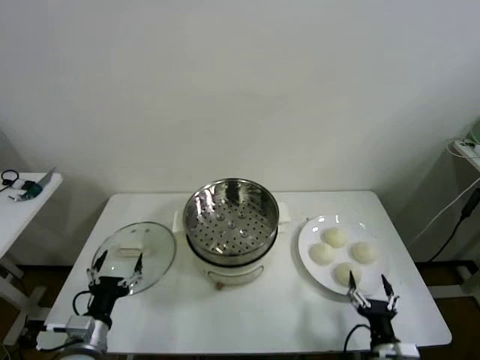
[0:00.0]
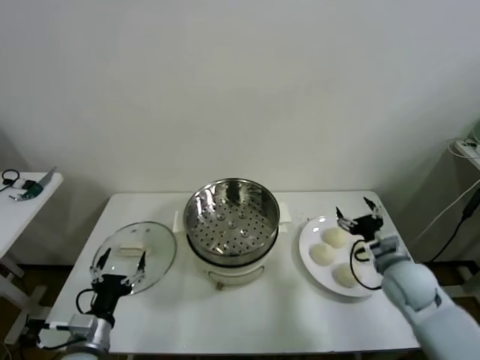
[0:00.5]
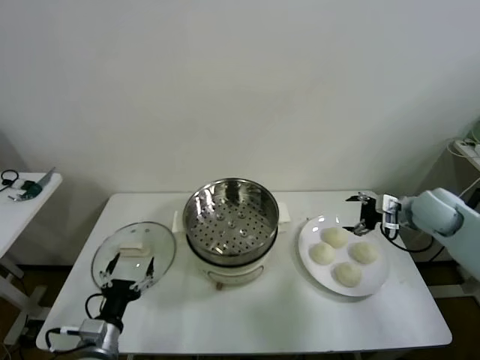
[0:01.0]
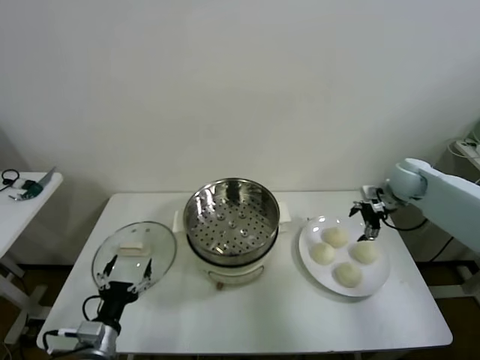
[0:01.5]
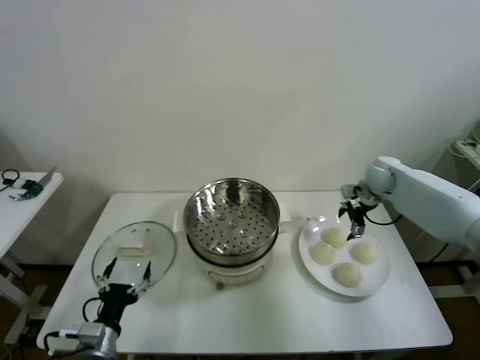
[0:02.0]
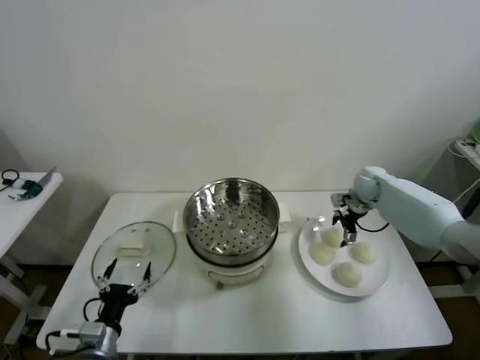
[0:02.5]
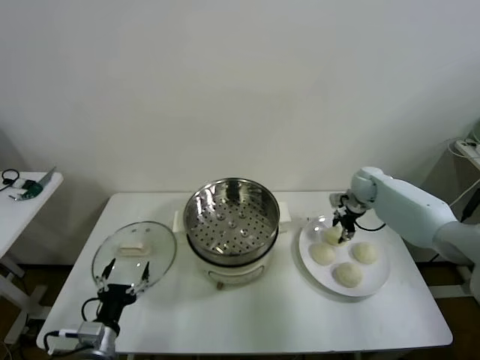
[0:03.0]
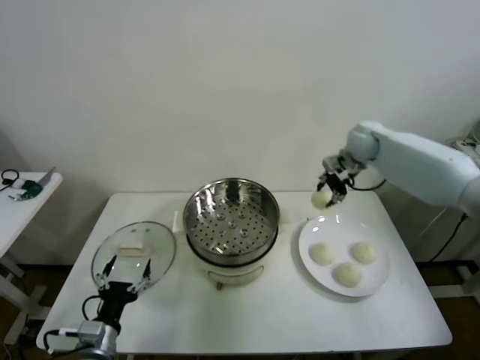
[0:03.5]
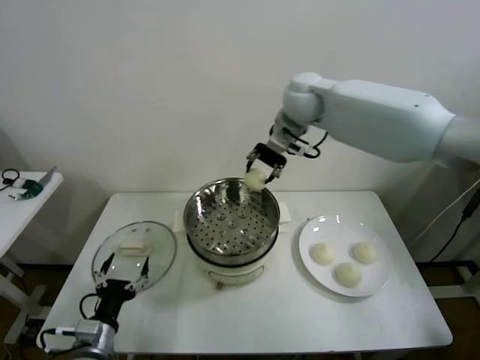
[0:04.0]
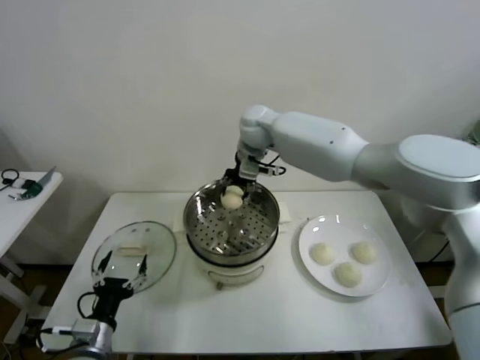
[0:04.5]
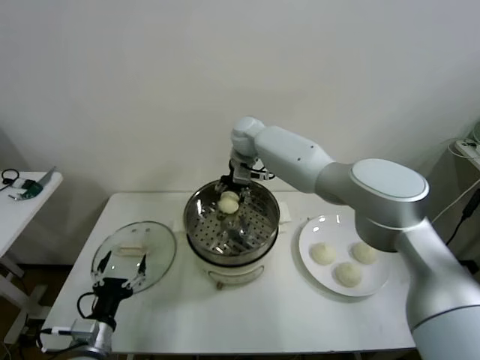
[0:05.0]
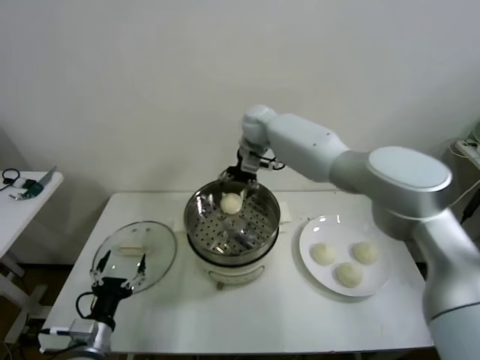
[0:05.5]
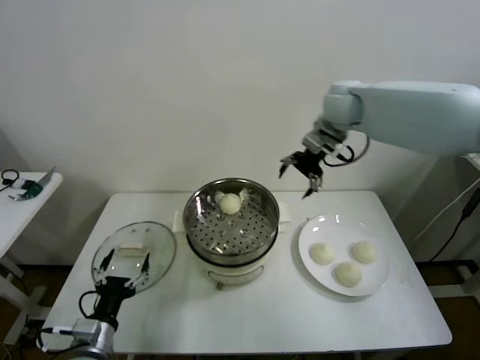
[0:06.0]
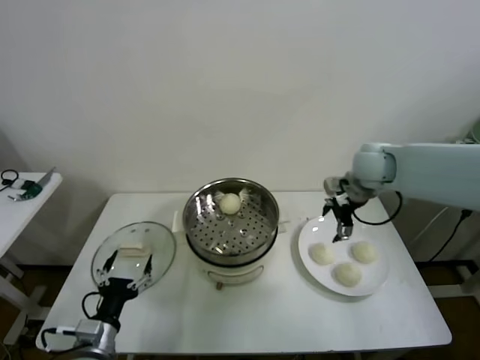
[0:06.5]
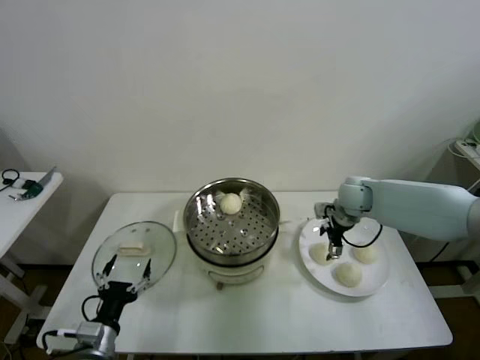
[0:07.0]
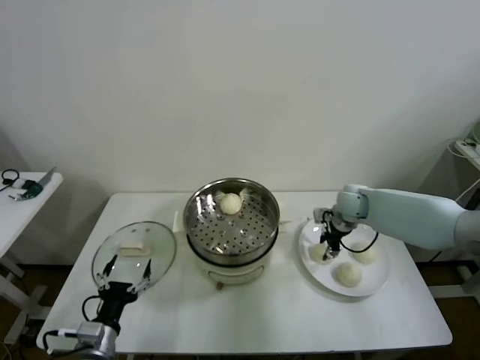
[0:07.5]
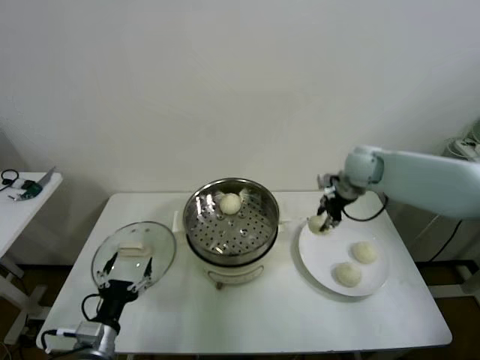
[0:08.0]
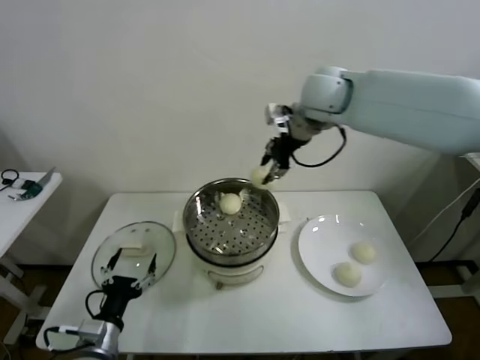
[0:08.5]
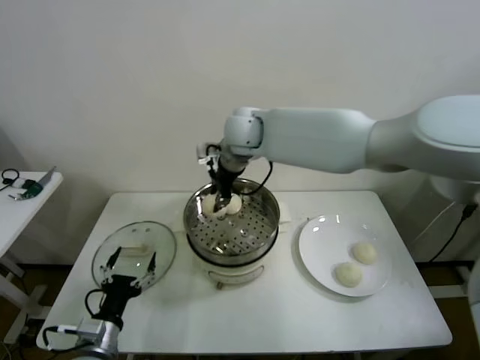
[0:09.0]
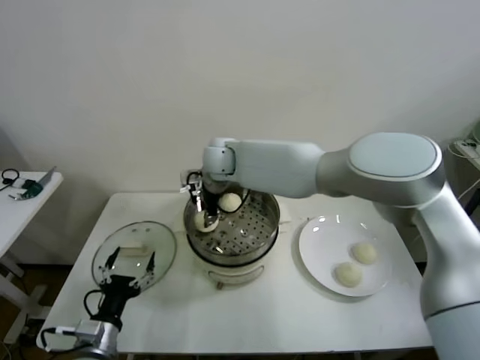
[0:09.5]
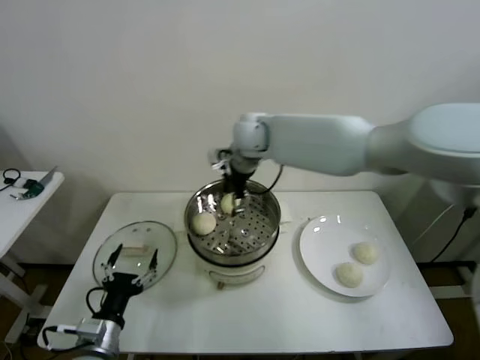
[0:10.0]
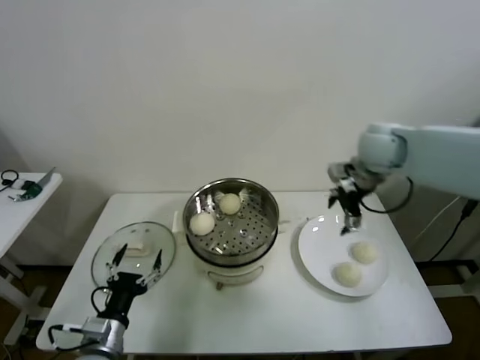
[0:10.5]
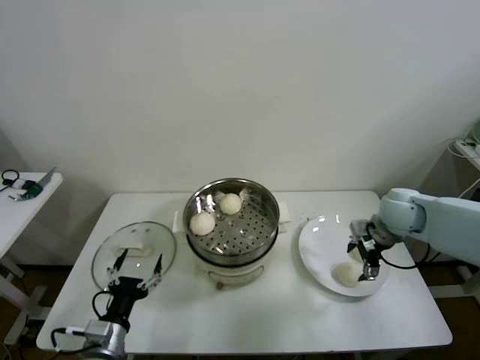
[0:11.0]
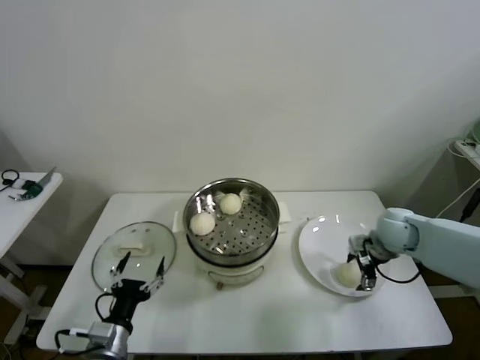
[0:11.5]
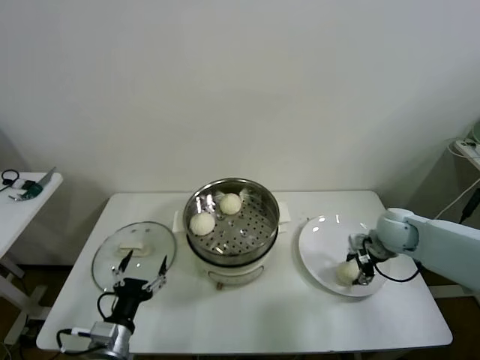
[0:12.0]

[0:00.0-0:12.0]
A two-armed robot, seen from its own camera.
Task of the whole recording: take steamed baozi put them in steamer then cover it.
Step, 0:00.0 to 0:02.5: Grasp the baozi in the plate with right gripper.
Step, 0:03.0 to 0:05.0: Place the baozi on the steamer with right gripper.
Step, 0:05.5 to 0:07.0: Grasp the baozi in the plate with right gripper.
Step, 0:07.5 to 0:09.5: Place the baozi on the steamer with right gripper.
Step, 0:10.0 to 0:11.5: Grasp the baozi in the plate with right gripper.
0:02.0 to 0:04.0: The right gripper shifts approximately 35 cm to the left and upward, and closes its fingers.
0:04.0 to 0:06.0: The right gripper travels to the right by roughly 10 cm, and opens its fingers.
0:06.0 to 0:08.0: The right gripper travels downward and to the right by roughly 15 cm, and closes up.
0:08.0 to 0:10.0: The right gripper is displaced to the left by approximately 25 cm, and opens its fingers.
0:10.0 to 0:12.0: The right gripper heads to the right and downward, covering some 40 cm, and closes.

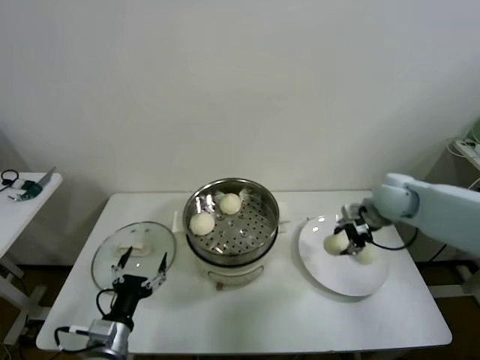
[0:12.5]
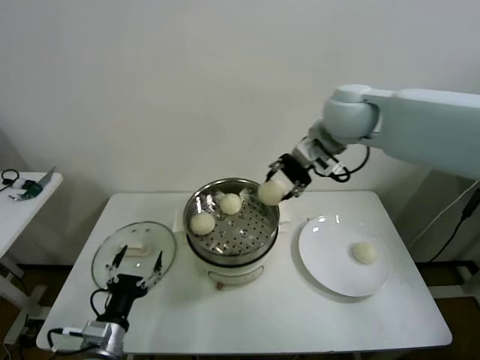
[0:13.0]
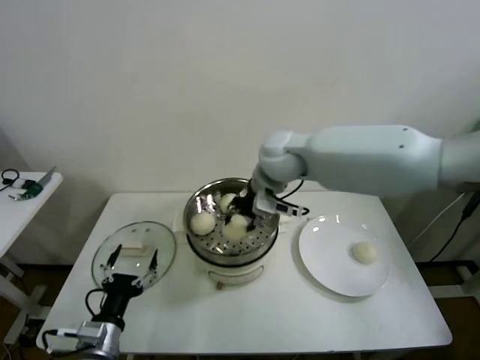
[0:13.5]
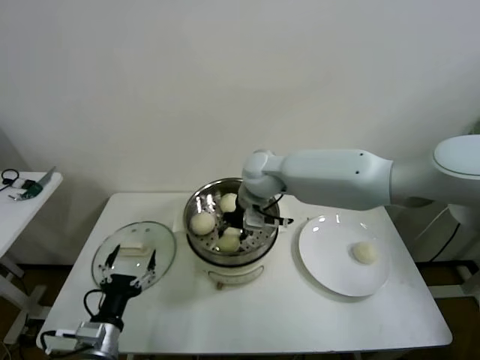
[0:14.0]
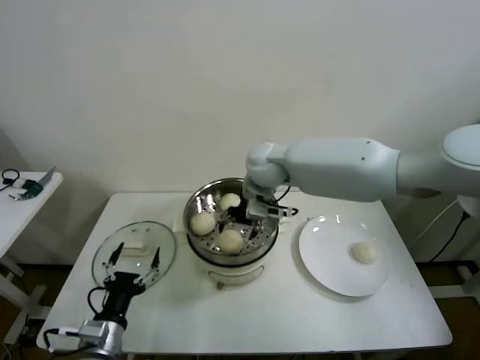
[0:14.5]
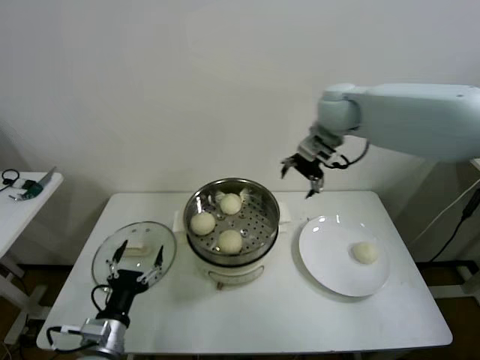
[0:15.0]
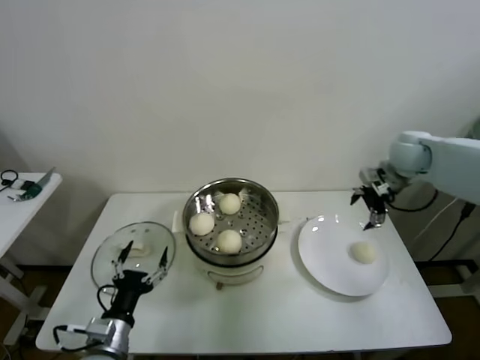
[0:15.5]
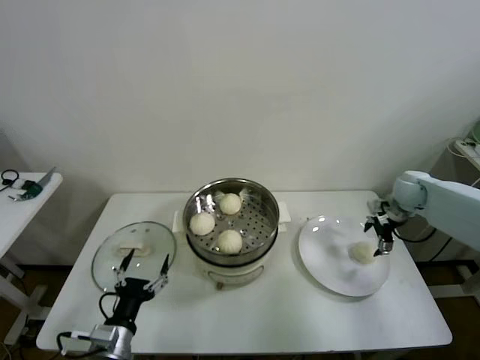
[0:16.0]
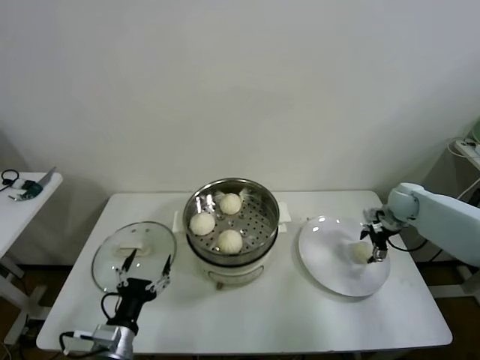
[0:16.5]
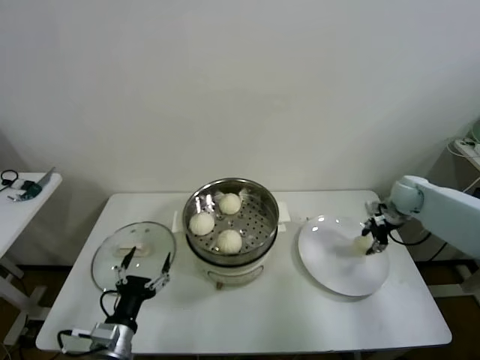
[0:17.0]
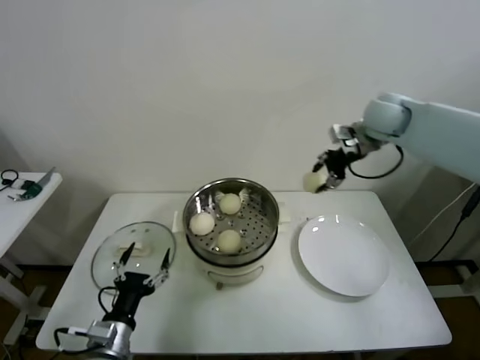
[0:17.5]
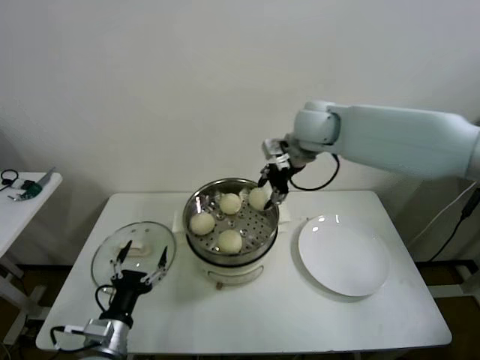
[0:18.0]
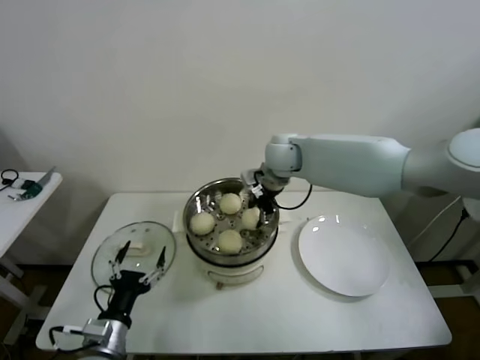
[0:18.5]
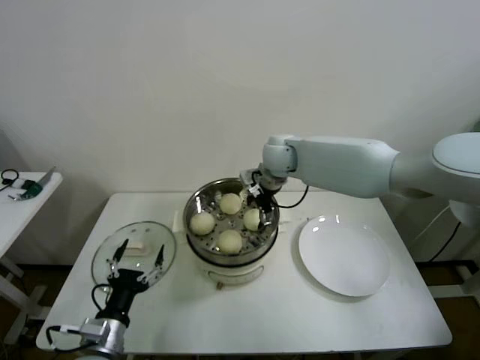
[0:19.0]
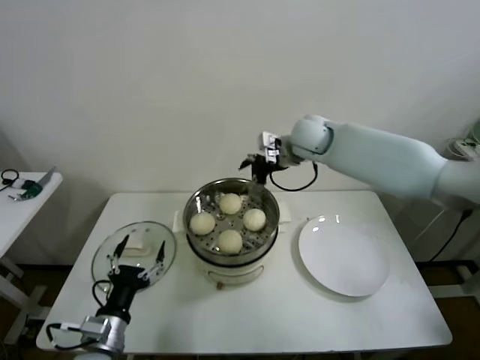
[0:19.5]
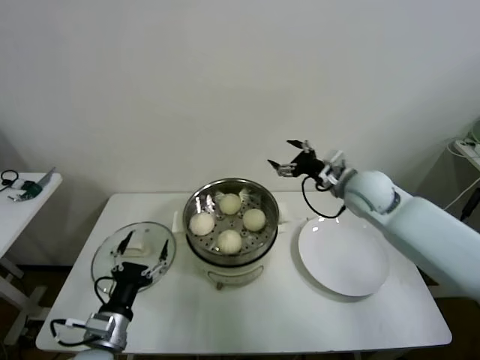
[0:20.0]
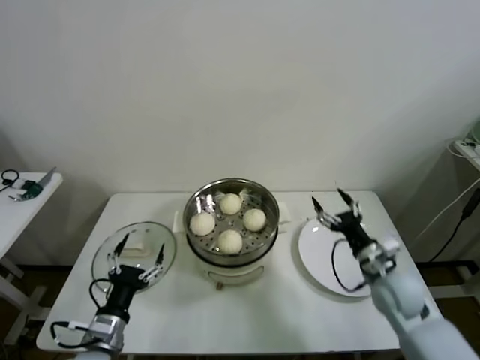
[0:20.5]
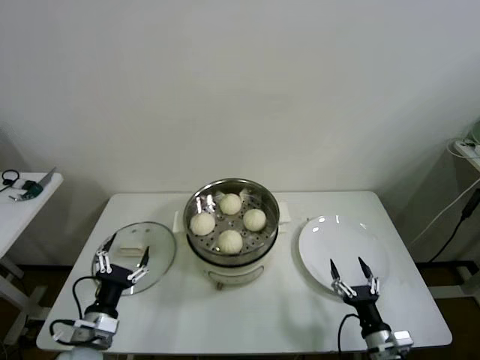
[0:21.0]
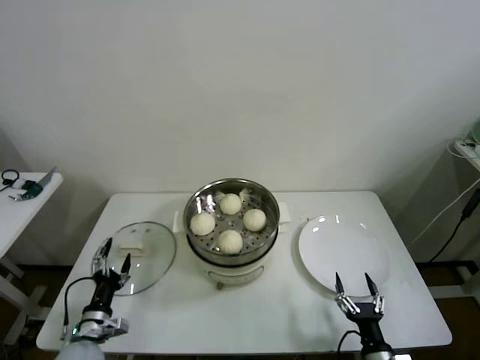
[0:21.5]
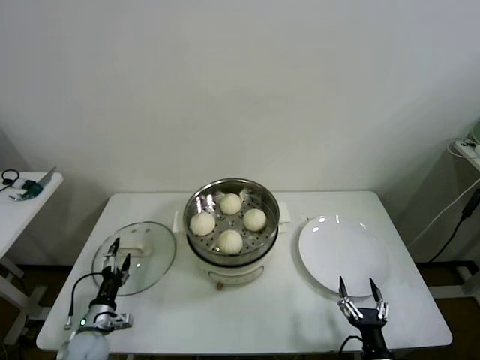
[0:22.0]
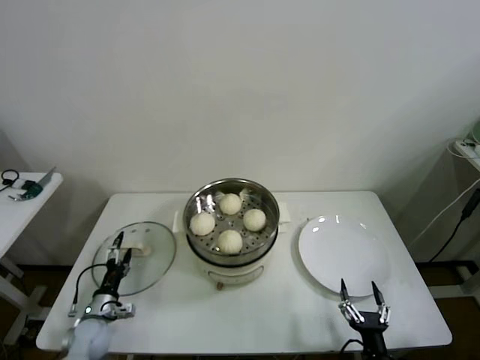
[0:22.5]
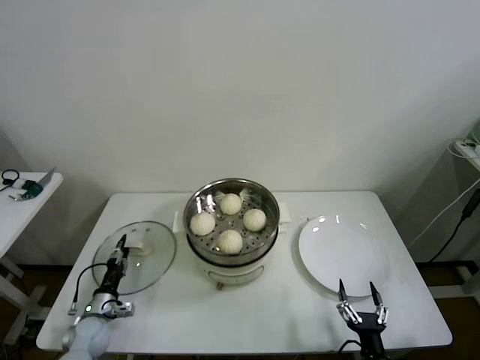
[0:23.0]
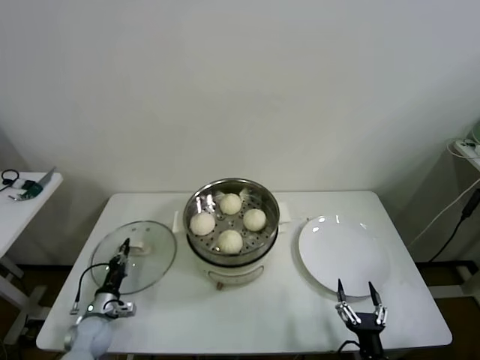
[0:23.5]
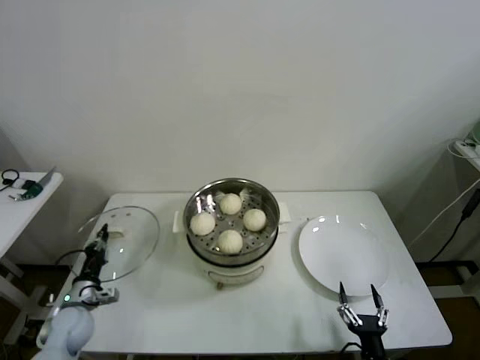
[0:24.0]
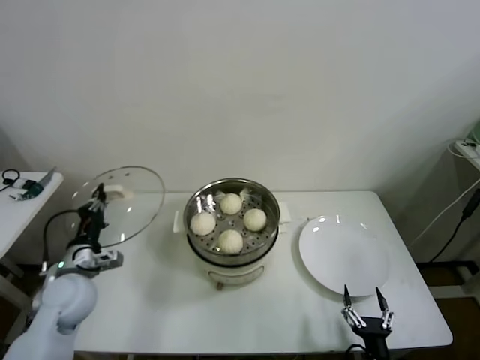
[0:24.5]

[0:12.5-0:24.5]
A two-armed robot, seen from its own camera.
Task of the whole recording: take steamed baozi put them in steamer then cover it.
Step, 0:12.5 to 0:14.0: Place the baozi on the steamer with right gripper.
Step, 0:14.5 to 0:16.5: Grasp the baozi in the plate with right gripper.
Step, 0:17.0 to 0:18.5: Place the baozi on the steamer with right gripper.
Step, 0:19.0 to 0:23.0: Grasp the pot lid with left gripper.
0:12.5 to 0:14.5: The right gripper heads to the left, covering roughly 30 cm, and opens.
0:14.5 to 0:16.5: The right gripper shifts approximately 40 cm to the right.
0:16.5 to 0:18.5: The right gripper moves to the left and upward, about 35 cm, and closes.
0:18.5 to 0:20.5: The right gripper moves to the right, backward and downward, roughly 35 cm, and opens its fingers.
0:20.5 to 0:22.5: The left gripper travels downward, to the left and forward by about 20 cm. Meanwhile the right gripper is displaced backward and downward by about 30 cm.
0:22.5 to 0:24.5: The left gripper is displaced upward by some 20 cm, and closes up.

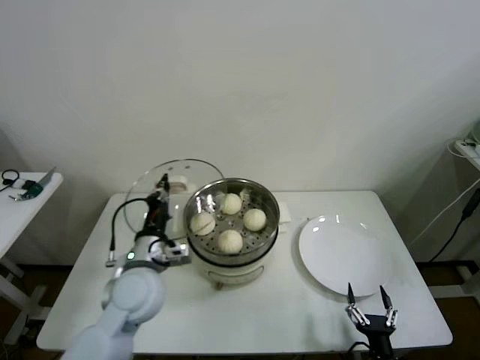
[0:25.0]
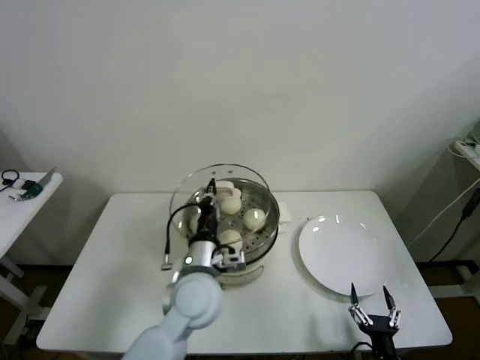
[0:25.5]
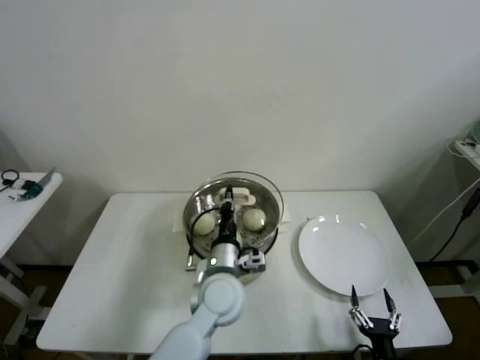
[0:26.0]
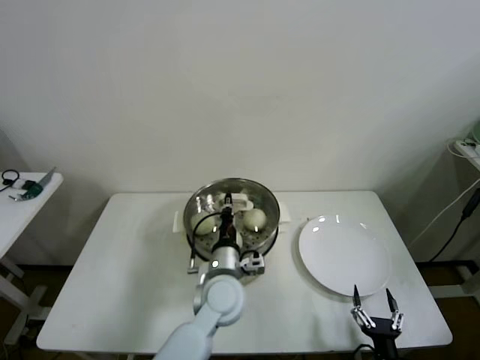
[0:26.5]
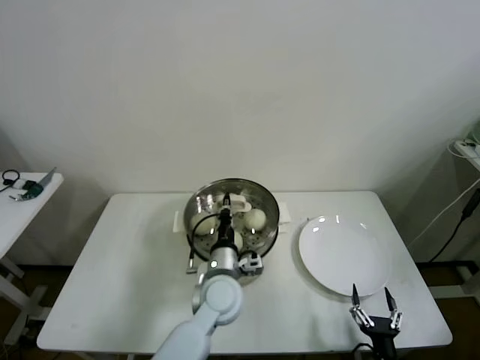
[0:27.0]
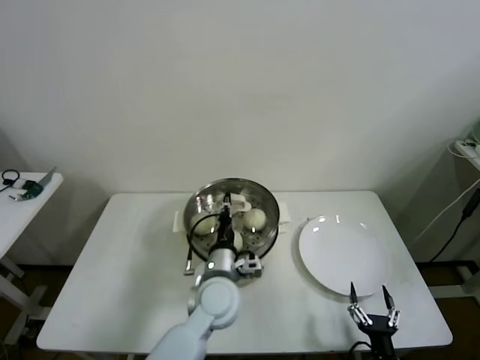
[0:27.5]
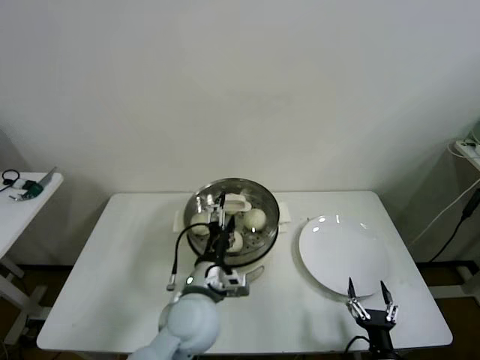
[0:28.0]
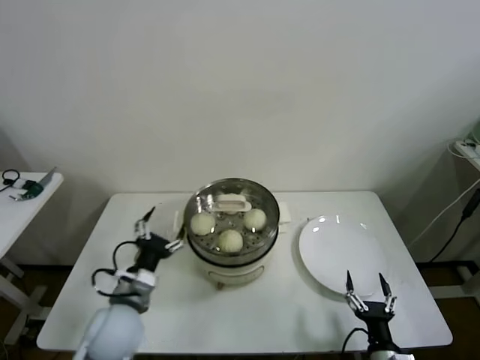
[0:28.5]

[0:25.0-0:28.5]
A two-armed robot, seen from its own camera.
Task of the whole recording: take steamed baozi put them in steamer then cover it.
Step, 0:25.0 to 0:27.5: Place the pot lid on the steamer with left gripper.
0:25.0 to 0:27.0: The left gripper heads to the right and downward, covering about 20 cm.
0:27.0 to 0:28.5: The left gripper goes roughly 15 cm to the left and backward, and opens.
